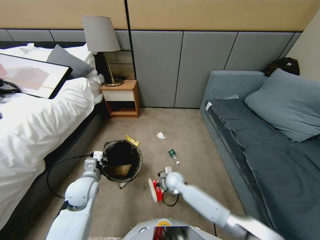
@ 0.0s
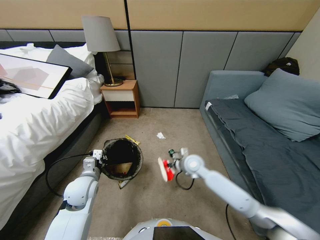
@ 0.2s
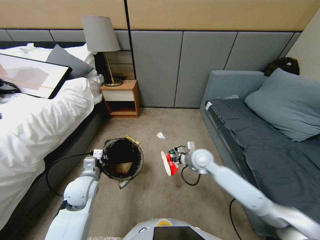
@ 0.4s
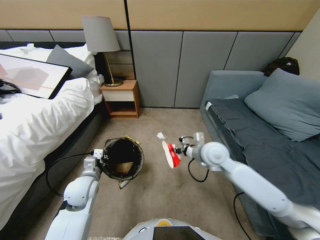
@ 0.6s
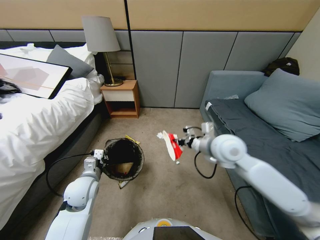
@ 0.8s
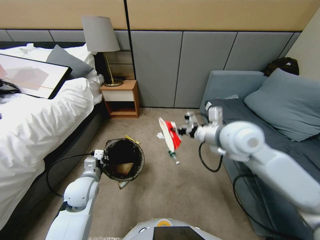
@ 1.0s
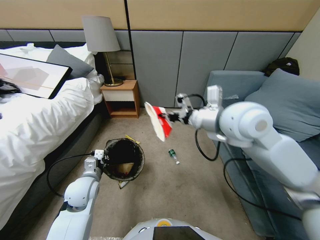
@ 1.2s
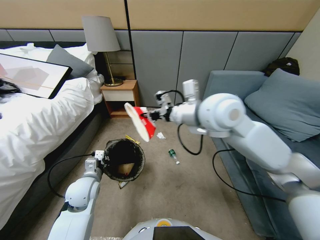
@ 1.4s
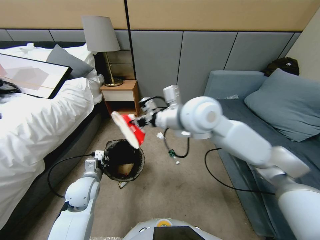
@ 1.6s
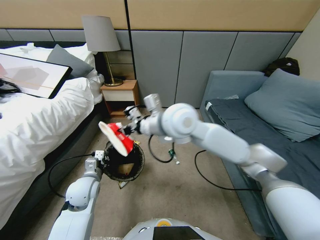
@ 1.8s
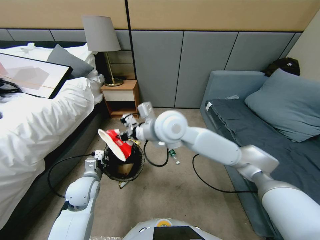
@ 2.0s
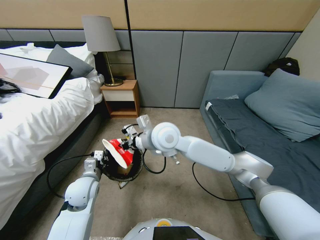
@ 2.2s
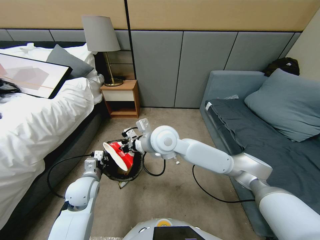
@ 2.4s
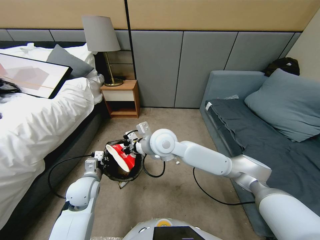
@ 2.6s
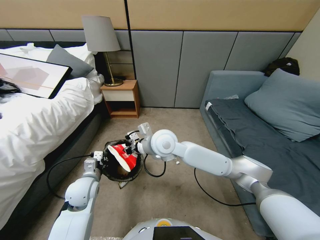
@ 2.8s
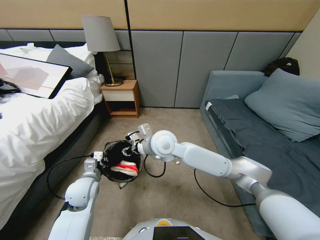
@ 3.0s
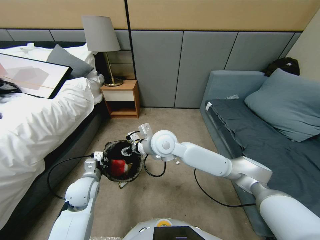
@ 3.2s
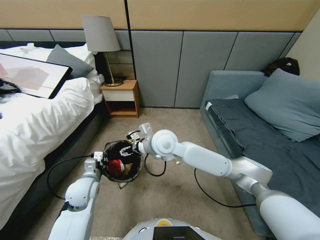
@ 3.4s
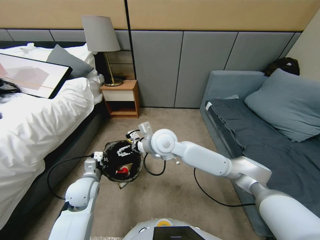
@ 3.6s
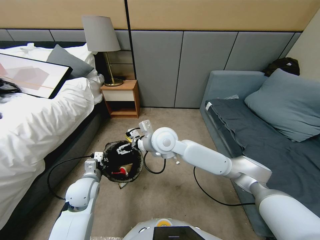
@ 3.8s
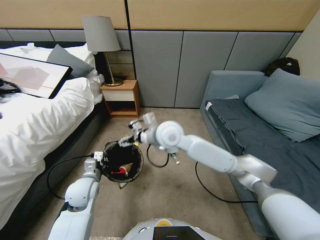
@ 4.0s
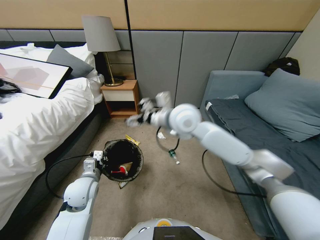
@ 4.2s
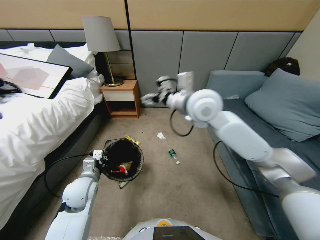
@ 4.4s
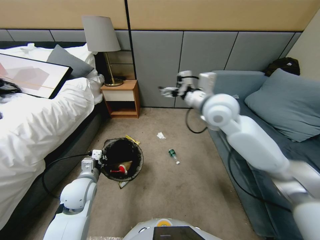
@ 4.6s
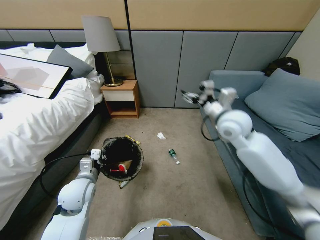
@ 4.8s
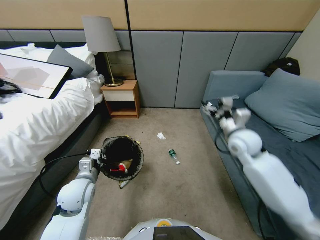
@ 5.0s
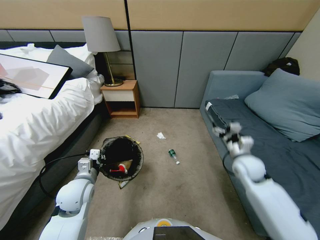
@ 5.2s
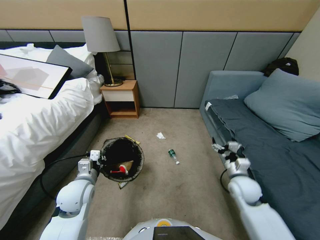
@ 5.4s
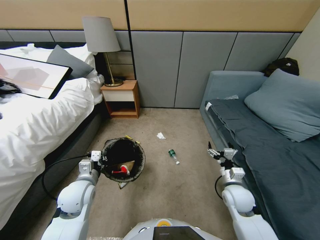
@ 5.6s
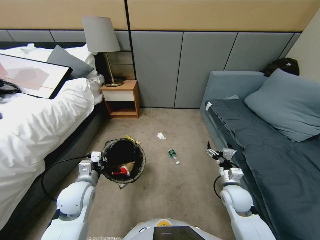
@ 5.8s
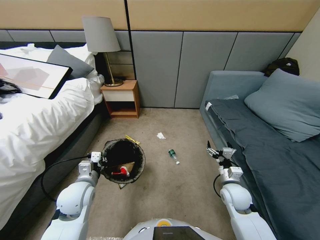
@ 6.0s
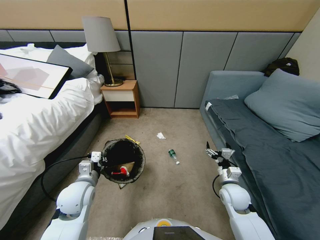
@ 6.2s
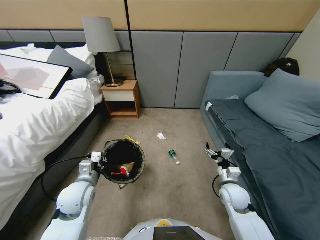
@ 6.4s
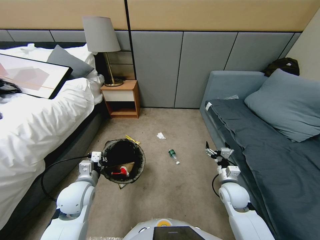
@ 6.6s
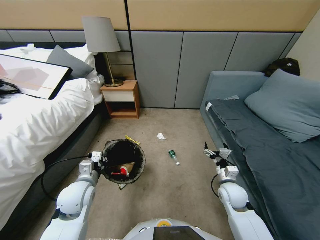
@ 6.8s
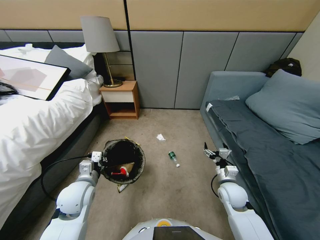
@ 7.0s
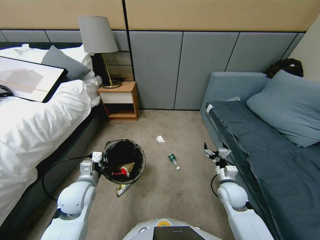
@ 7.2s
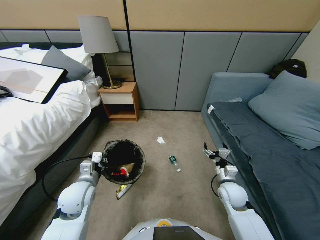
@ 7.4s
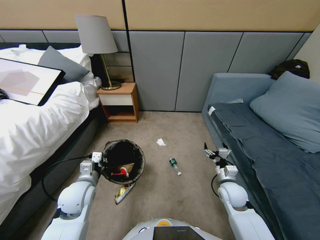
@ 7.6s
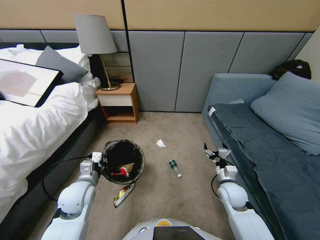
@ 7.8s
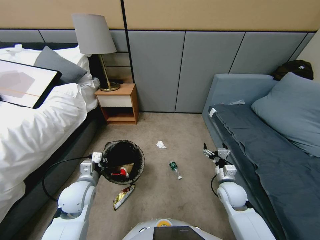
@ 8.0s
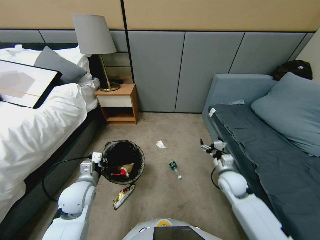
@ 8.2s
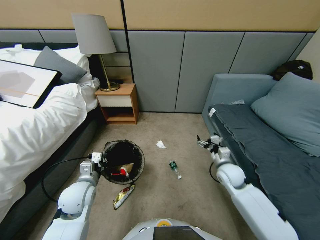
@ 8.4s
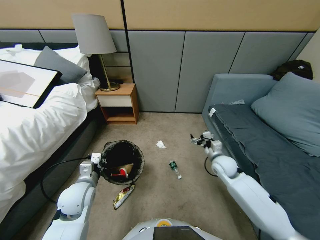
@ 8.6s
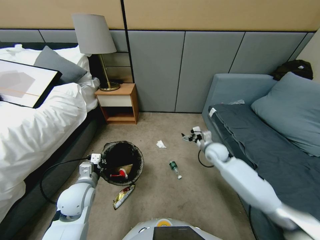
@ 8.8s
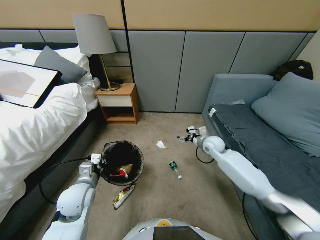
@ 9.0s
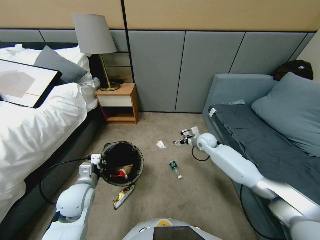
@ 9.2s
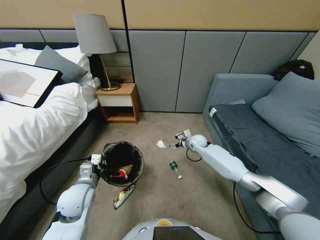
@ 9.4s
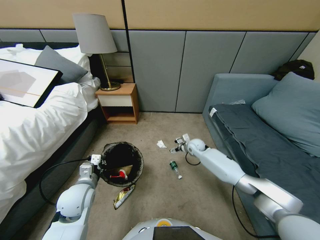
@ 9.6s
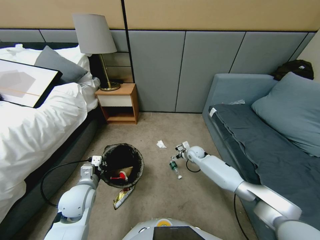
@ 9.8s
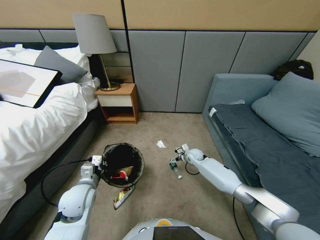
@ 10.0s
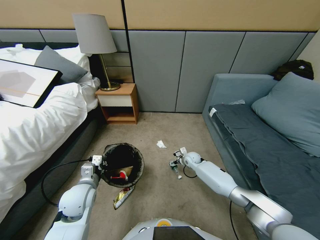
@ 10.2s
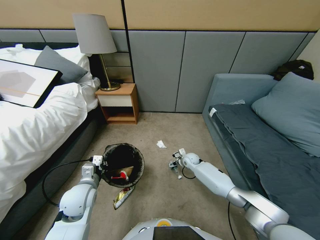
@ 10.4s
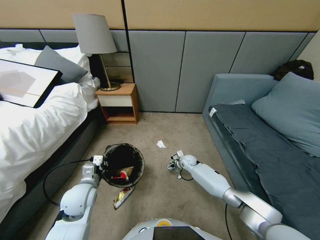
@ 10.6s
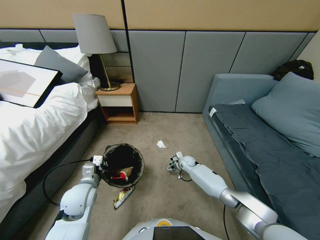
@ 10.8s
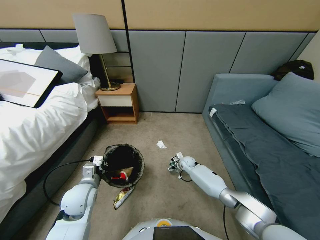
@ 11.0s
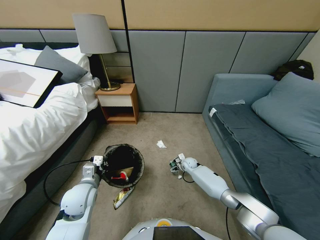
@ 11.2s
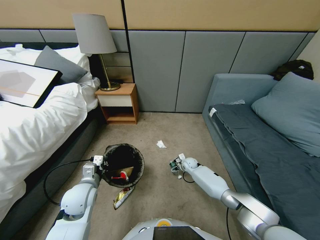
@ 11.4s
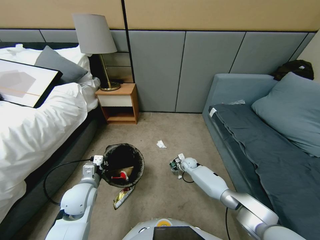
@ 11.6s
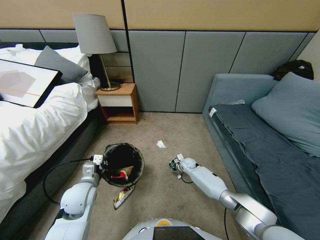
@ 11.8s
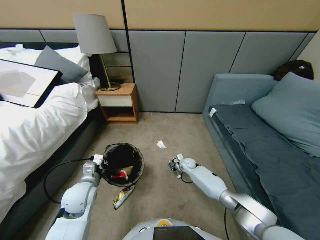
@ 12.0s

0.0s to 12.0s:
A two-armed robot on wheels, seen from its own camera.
Task of the whole recording: Pick up the trash bin, then pick up the garbage from the floor and place it into the trash bin.
0.0s to 1.6s: The right gripper heads upward, covering about 35 cm.
1.6s to 3.0s: The right gripper is displaced downward and to the left by approximately 15 cm, and opens its fingers.
3.0s to 4.4s: The right gripper shifts about 20 cm to the right and upward, and opens.
4.4s to 6.0s: The right gripper moves downward, backward and to the right, approximately 40 cm.
6.0s to 7.6s: Both grippers stay about where they are.
7.6s to 9.0s: The right gripper moves forward, roughly 20 cm.
9.0s to 10.4s: The right gripper heads downward, covering about 20 cm.
10.4s to 12.0s: The right gripper closes its fingers.

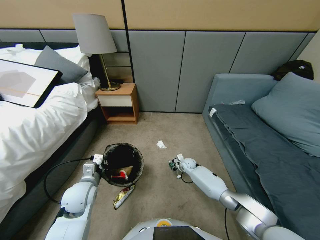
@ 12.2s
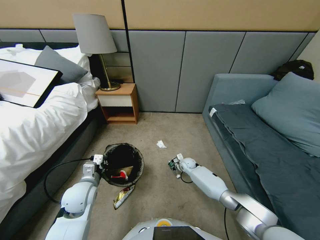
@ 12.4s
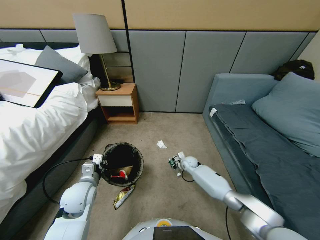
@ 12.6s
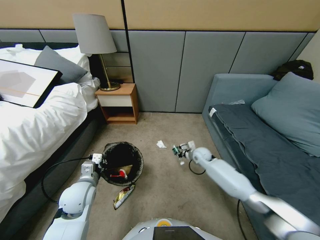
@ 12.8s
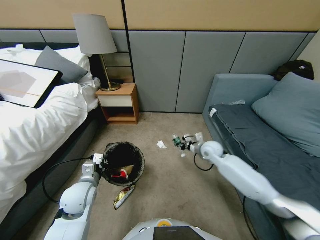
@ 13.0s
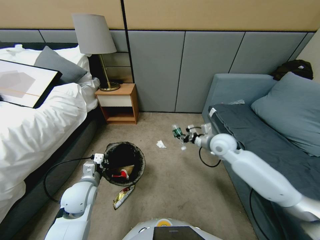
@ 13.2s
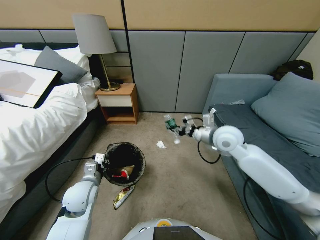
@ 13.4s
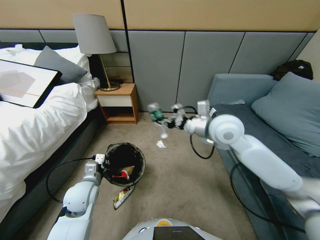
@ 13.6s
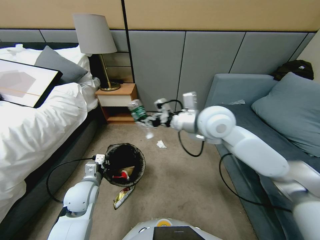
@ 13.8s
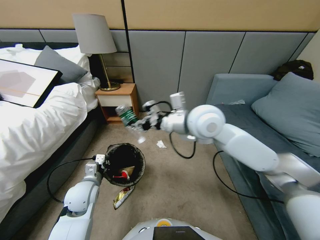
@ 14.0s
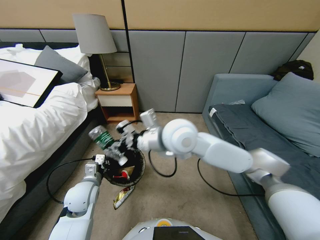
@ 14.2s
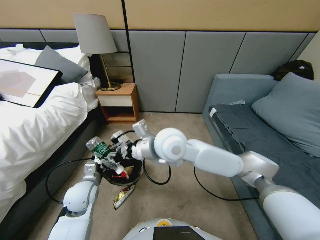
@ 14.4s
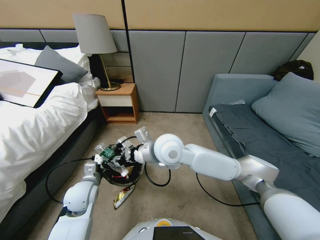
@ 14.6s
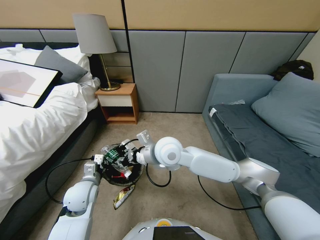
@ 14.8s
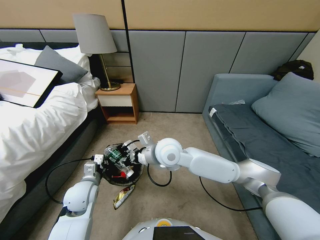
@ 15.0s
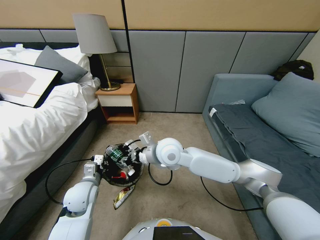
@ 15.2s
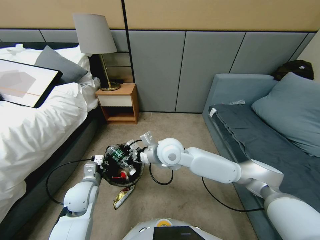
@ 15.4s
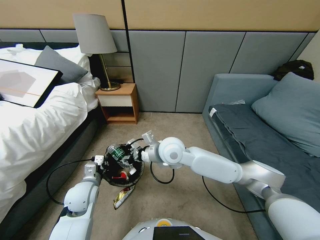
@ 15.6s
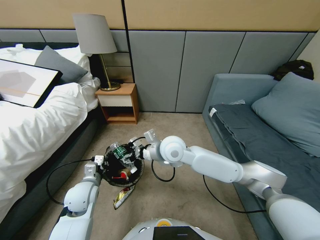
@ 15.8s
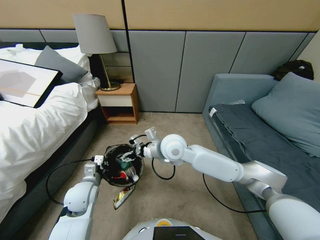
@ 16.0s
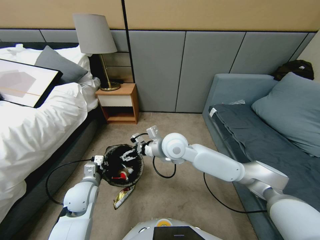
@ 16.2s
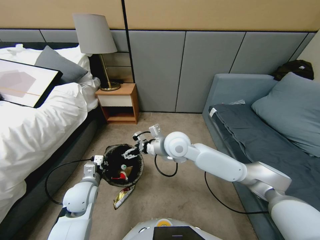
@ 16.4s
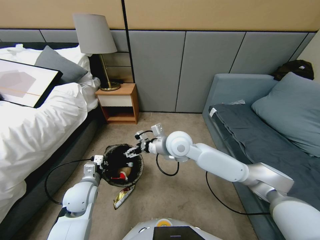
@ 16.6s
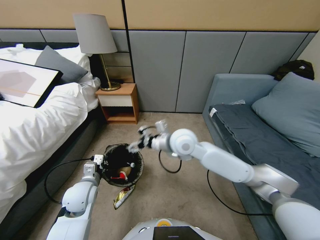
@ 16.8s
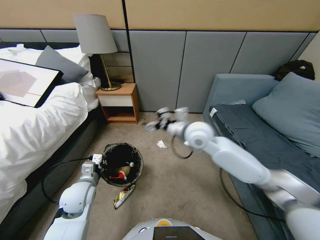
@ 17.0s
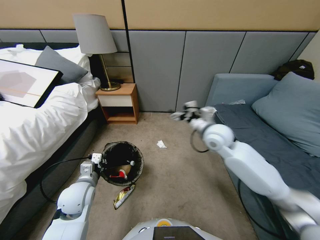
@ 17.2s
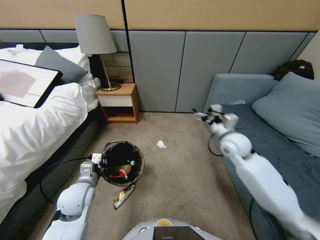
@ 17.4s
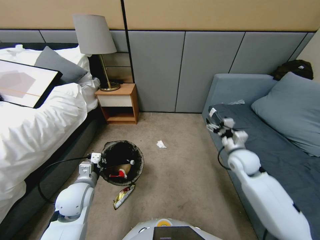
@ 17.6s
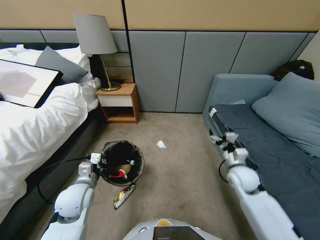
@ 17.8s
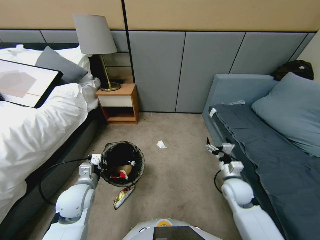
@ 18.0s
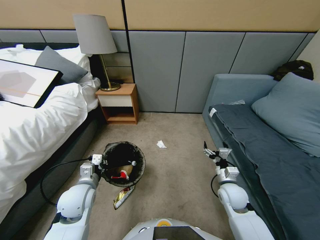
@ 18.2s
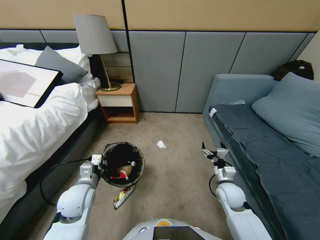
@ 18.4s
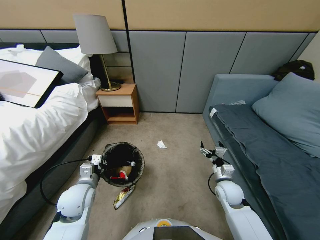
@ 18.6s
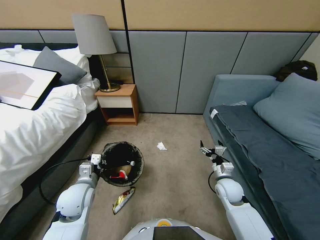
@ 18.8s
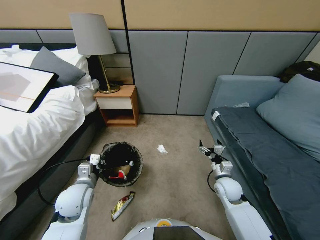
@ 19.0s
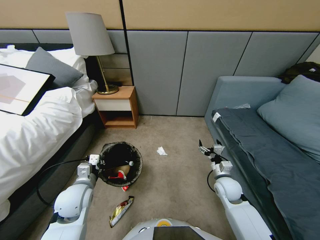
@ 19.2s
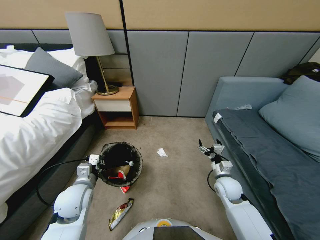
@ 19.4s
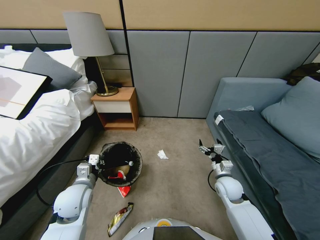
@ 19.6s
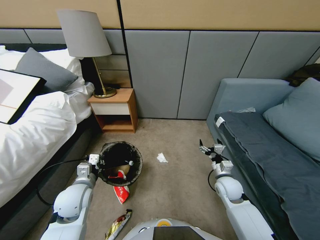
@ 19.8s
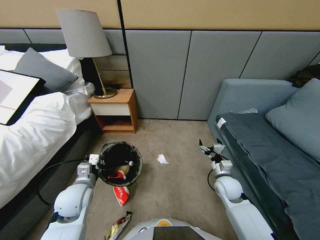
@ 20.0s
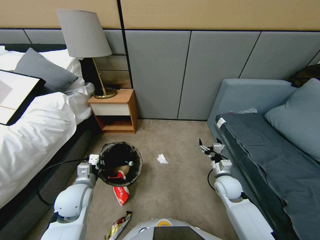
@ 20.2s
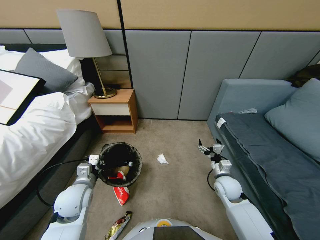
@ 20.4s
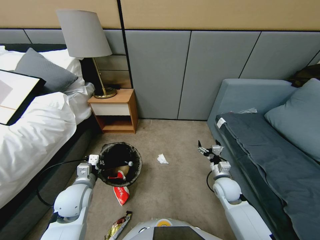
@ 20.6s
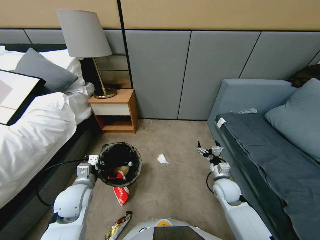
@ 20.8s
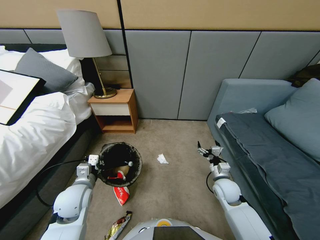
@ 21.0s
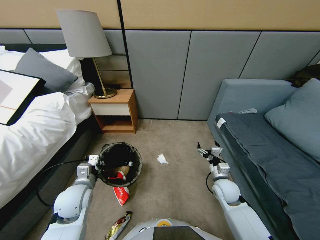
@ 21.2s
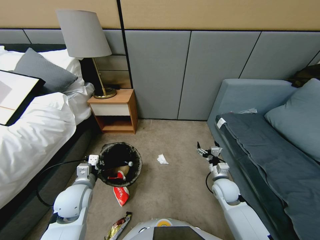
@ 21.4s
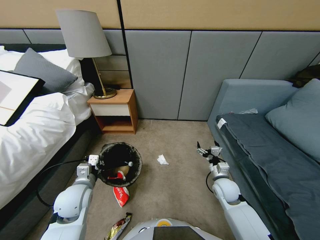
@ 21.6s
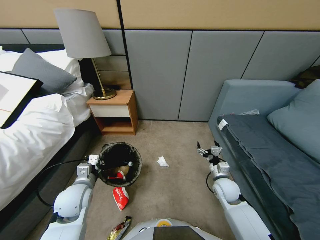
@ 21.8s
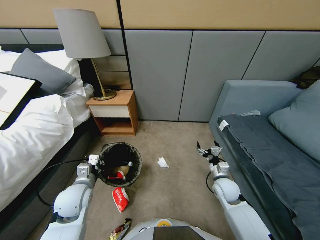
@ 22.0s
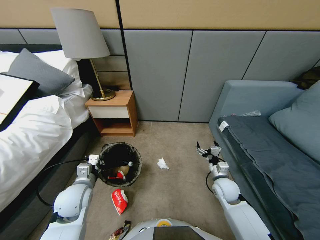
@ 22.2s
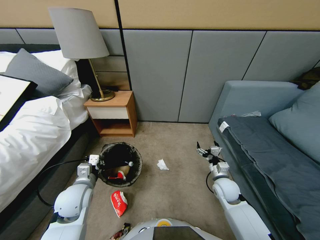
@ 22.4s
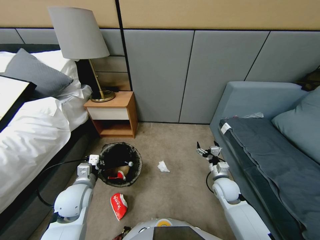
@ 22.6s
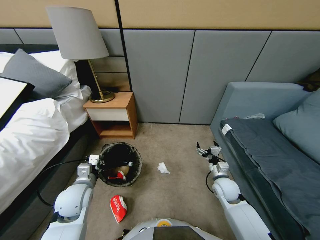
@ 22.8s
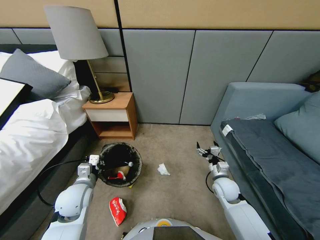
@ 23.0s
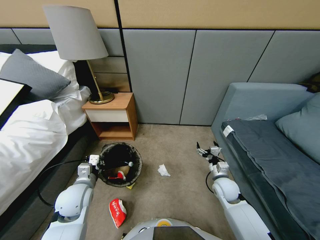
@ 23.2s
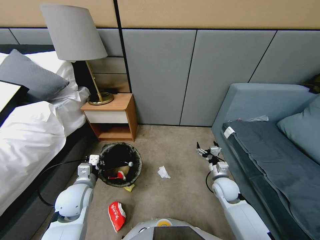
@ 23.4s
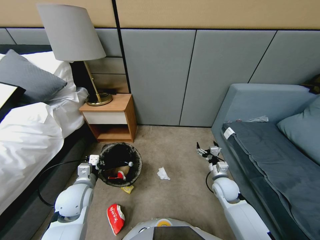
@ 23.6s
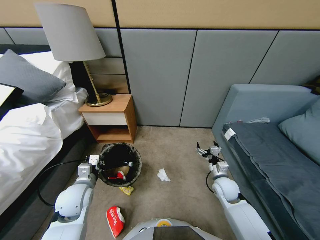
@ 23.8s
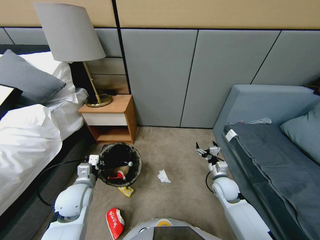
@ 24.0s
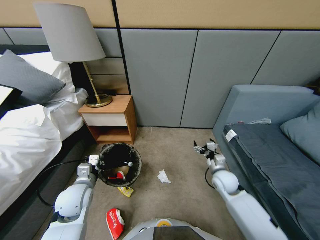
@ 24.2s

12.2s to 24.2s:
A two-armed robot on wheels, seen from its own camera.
Task of the whole recording: Pick up the trash bin, then pick up the garbage from the floor and place it into the trash bin.
12.2s to 13.8s: The right gripper travels upward by about 50 cm.
13.8s to 15.2s: The right gripper is displaced downward and to the left by roughly 15 cm.
15.2s to 16.6s: The right gripper opens.
16.6s to 18.2s: The right gripper moves to the right, downward and backward, about 30 cm.
19.8s to 21.2s: The grippers make only small movements.
21.2s to 22.6s: Both grippers stay about where they are.
22.6s to 24.2s: The right gripper travels forward by about 5 cm.
